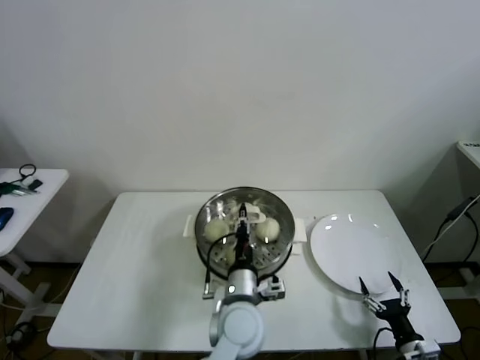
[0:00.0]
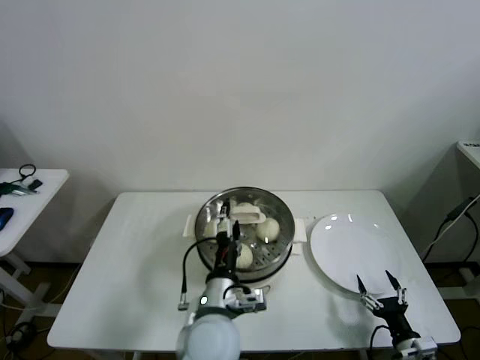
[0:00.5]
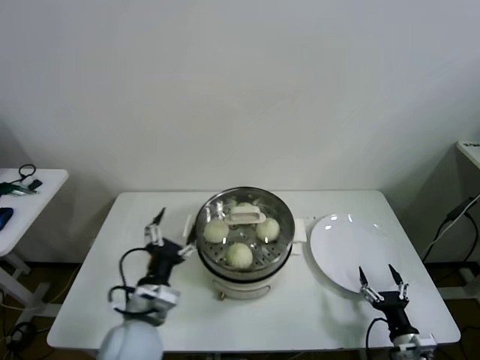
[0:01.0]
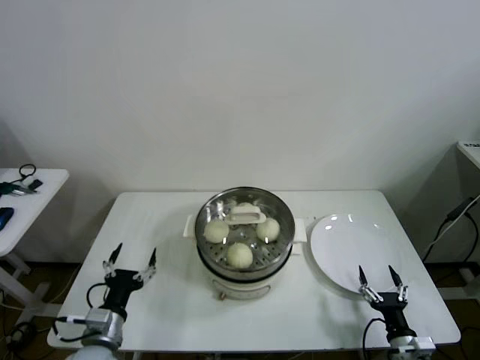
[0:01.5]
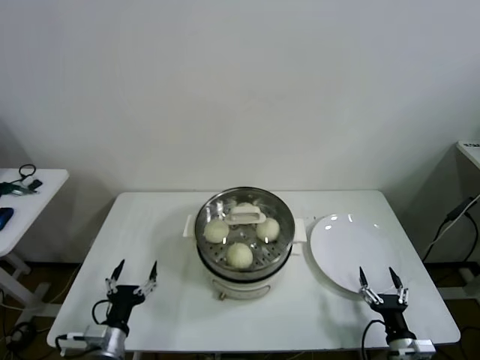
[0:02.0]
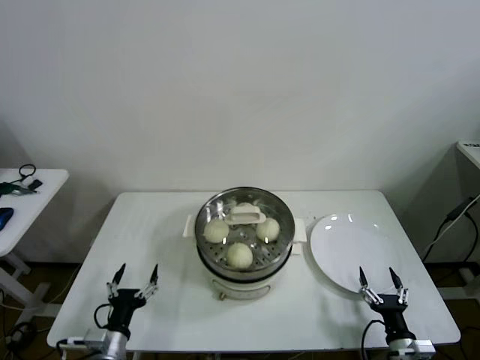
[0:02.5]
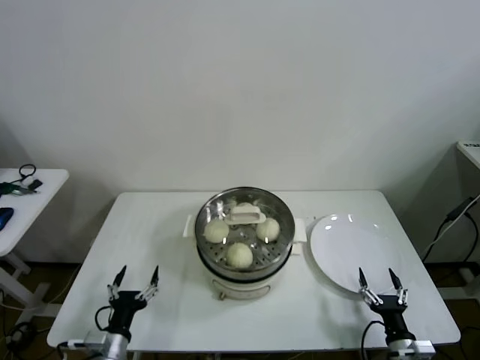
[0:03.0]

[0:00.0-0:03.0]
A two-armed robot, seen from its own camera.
Task of the whole recording: take steamed baozi put them in steamer then cover it.
0:00.0 to 0:01.5: The left gripper shifts some 30 cm to the left, and opens up.
0:01.5 to 0:03.0: The left gripper is displaced downward by roughly 5 cm.

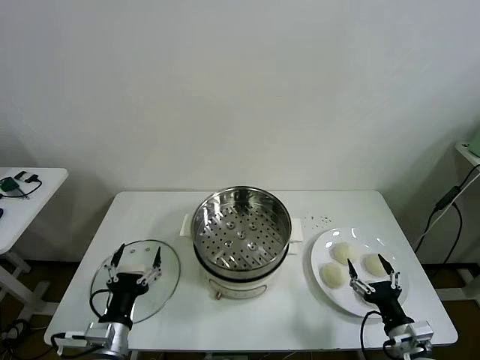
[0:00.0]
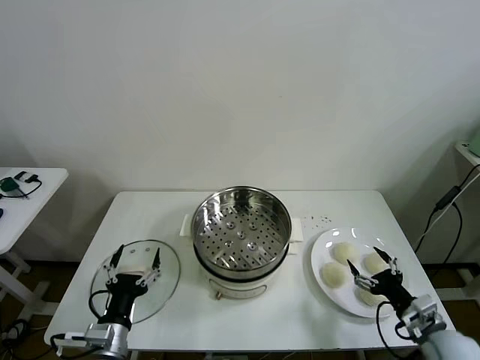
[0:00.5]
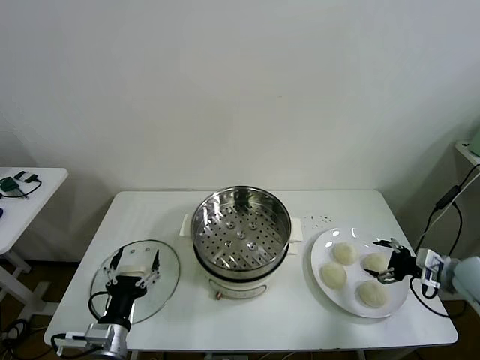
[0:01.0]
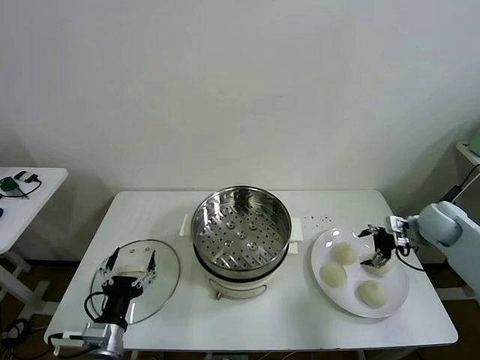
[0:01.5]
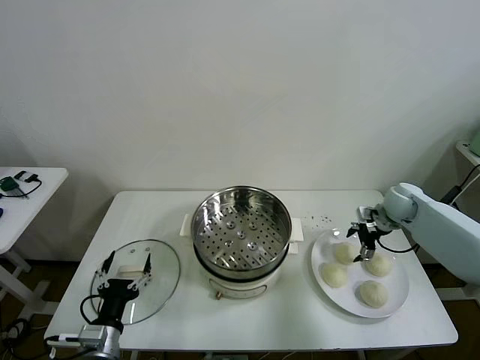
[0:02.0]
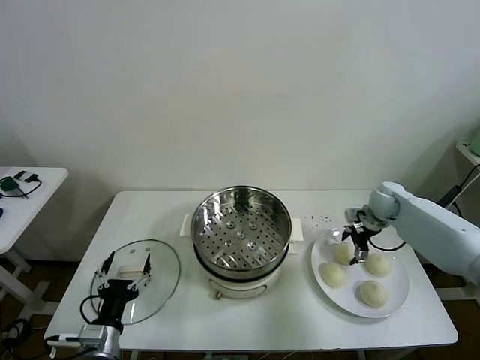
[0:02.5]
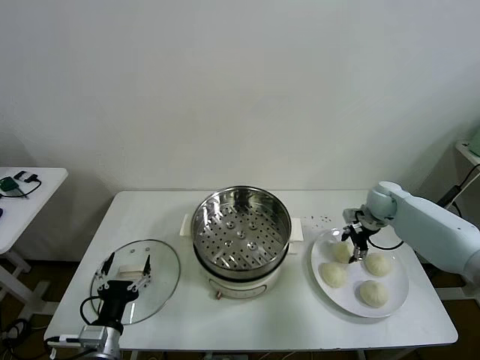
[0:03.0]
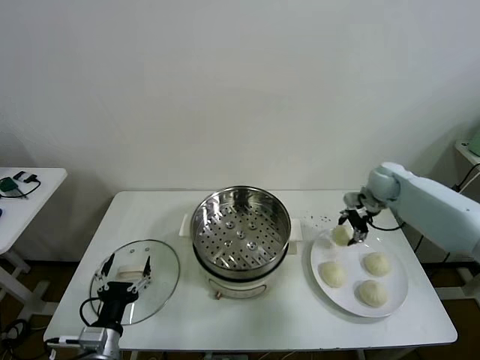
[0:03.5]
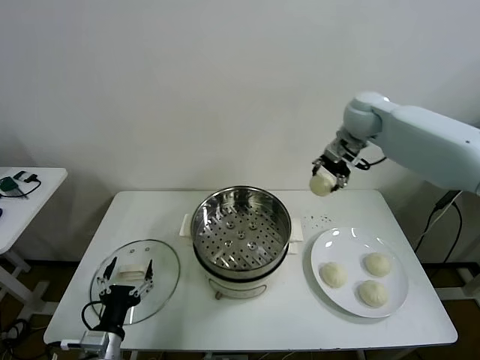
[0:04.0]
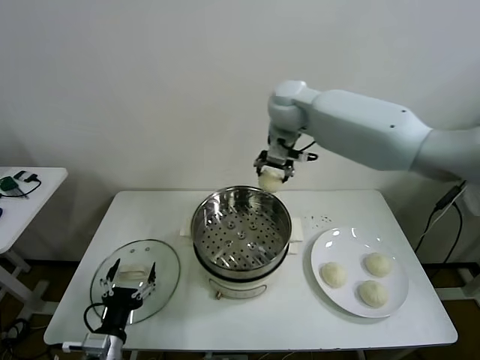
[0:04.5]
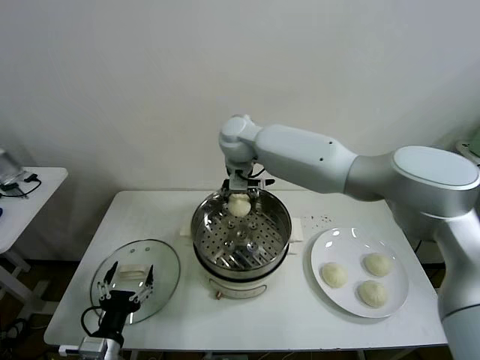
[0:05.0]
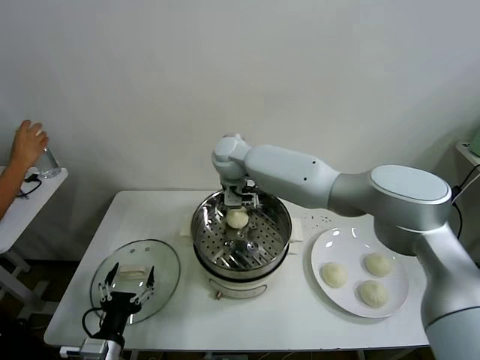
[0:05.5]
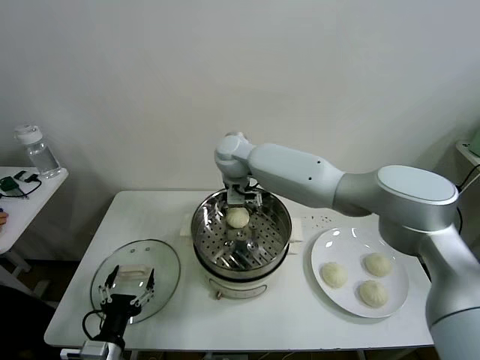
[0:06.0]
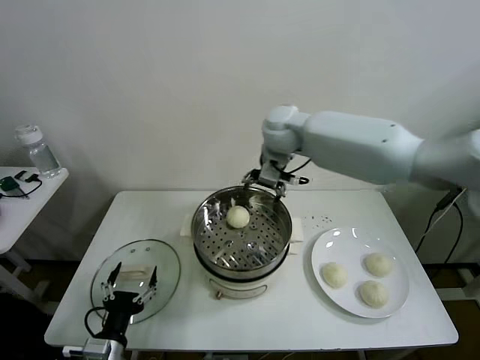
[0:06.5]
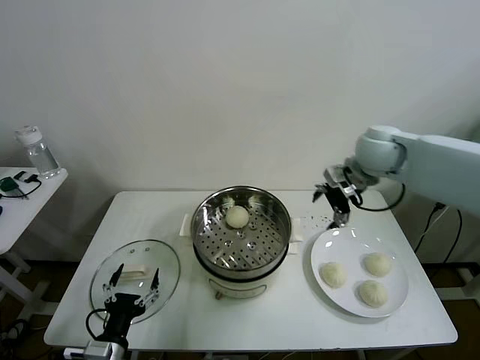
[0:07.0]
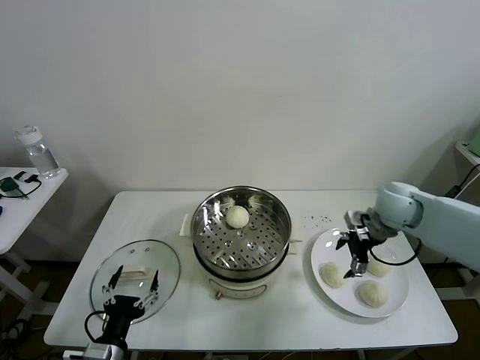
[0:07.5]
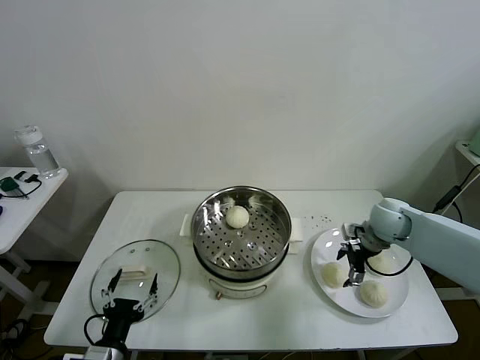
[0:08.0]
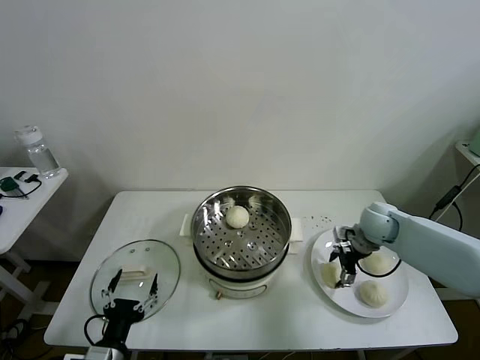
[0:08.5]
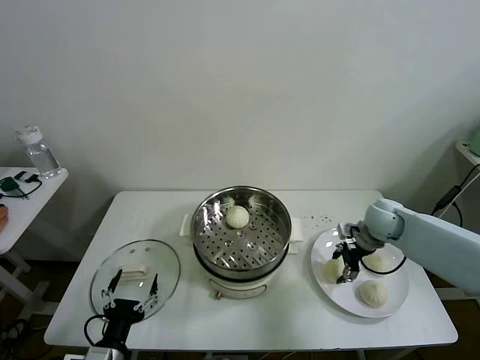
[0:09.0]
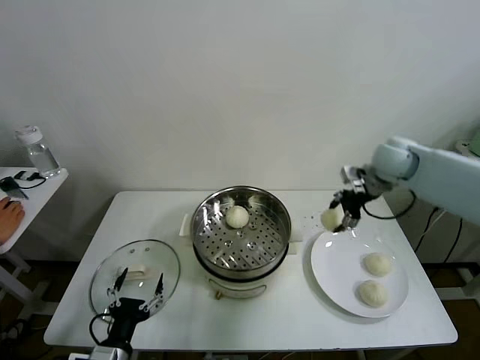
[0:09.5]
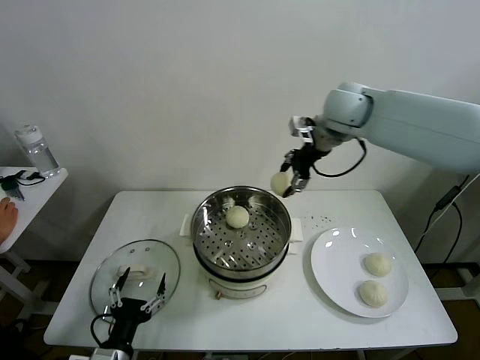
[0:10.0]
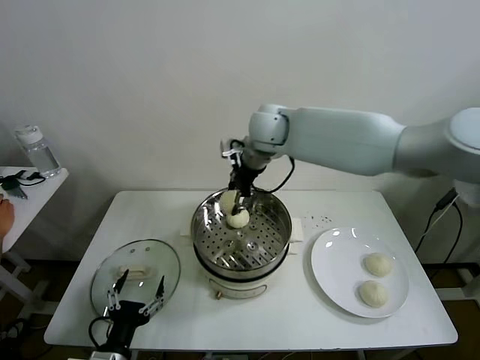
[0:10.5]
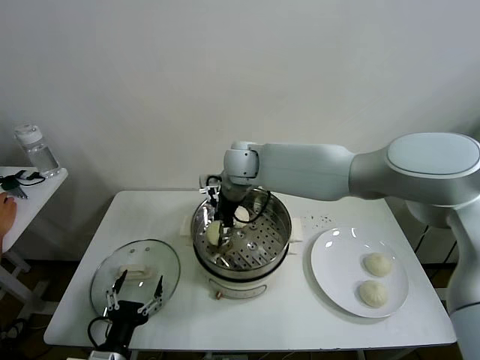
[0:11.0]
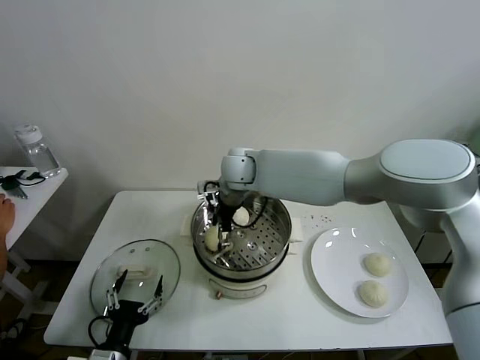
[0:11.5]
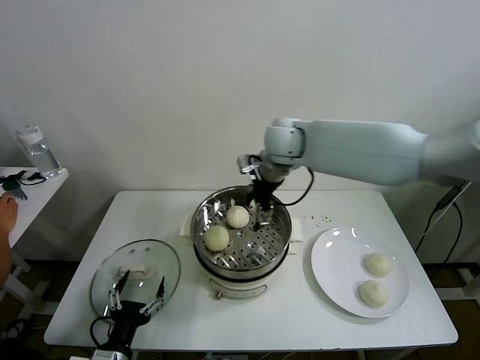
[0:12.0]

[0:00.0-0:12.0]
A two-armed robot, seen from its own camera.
Task of the whole recording: take steamed baozi put them in steamer then cover it.
Step, 0:00.0 to 0:03.0: Grasp the baozi in the plate with right gripper.
Step, 0:03.5 to 0:05.5: Place the baozi on the steamer with right gripper.
Step, 0:06.0 to 0:08.5: Grasp the baozi in the plate with right gripper.
Step, 0:09.0 to 0:11.5: Place the baozi on the steamer with right gripper.
0:02.0 to 0:04.0: The right gripper shifts about 30 cm upward and to the left, and closes up.
0:04.0 to 0:06.0: The right gripper goes about 25 cm to the left, and opens its fingers.
0:06.0 to 0:08.0: The right gripper shifts roughly 35 cm to the right.
0:08.0 to 0:10.0: The right gripper heads upward and to the left, covering some 30 cm, and closes its fingers.
0:10.0 to 0:12.0: The right gripper heads to the left and downward, covering some 10 cm, and opens.

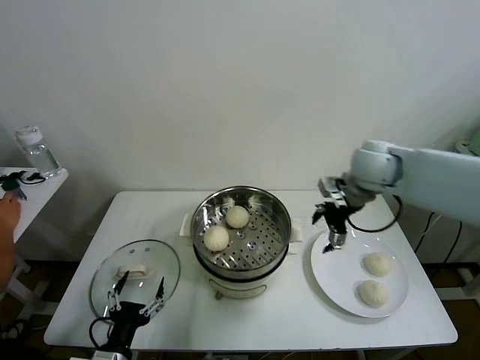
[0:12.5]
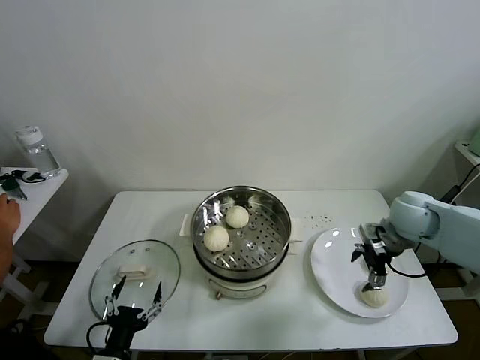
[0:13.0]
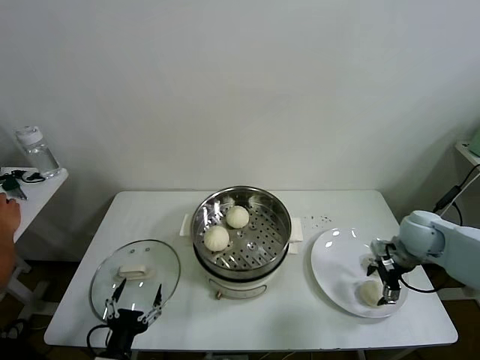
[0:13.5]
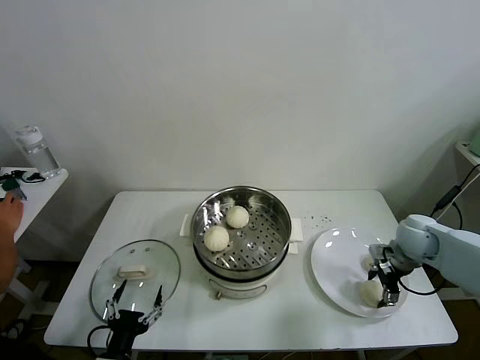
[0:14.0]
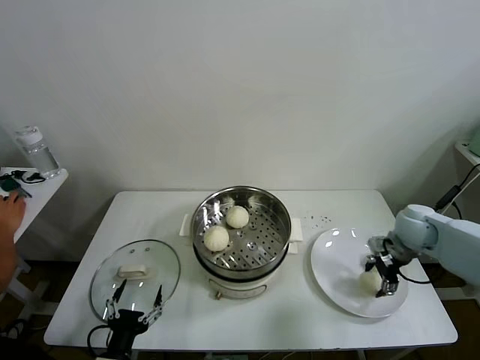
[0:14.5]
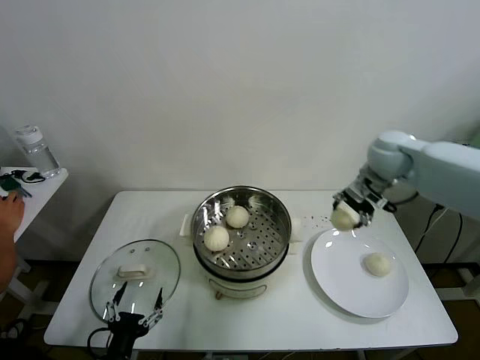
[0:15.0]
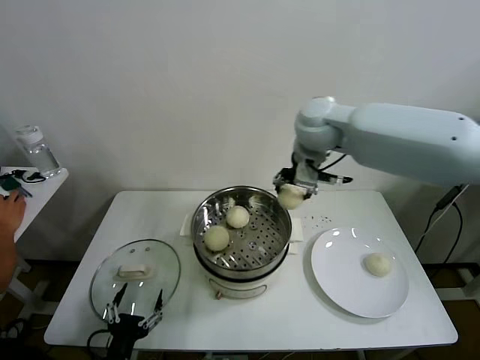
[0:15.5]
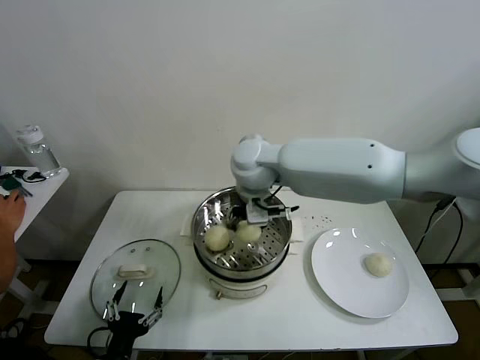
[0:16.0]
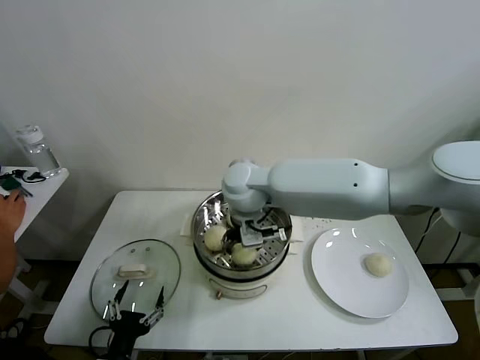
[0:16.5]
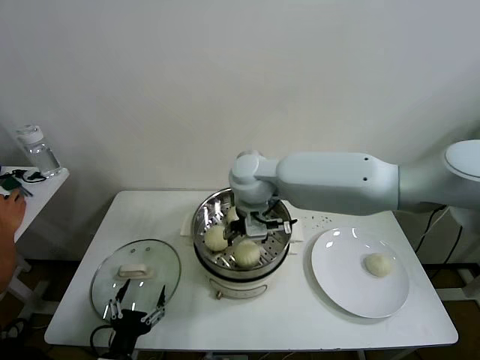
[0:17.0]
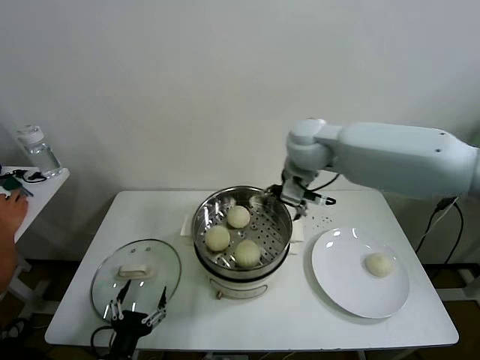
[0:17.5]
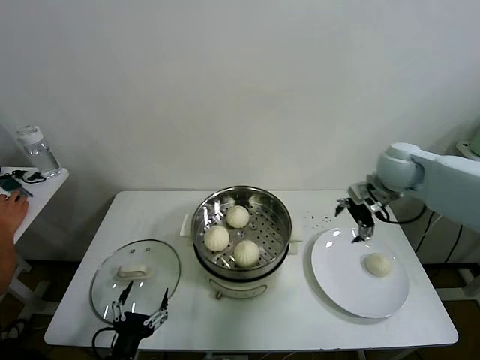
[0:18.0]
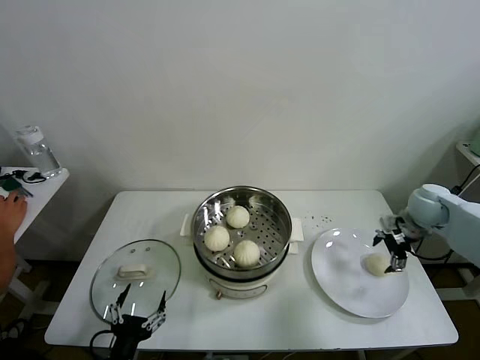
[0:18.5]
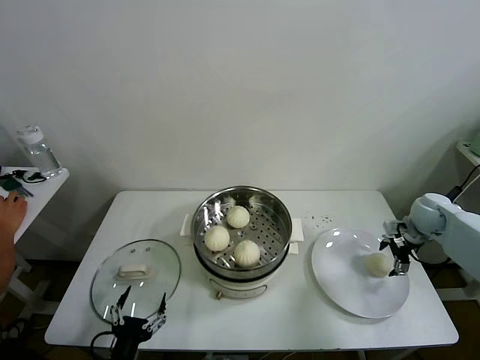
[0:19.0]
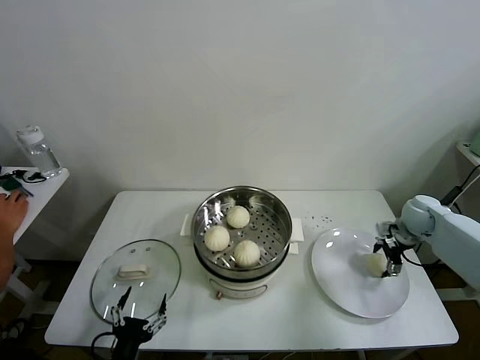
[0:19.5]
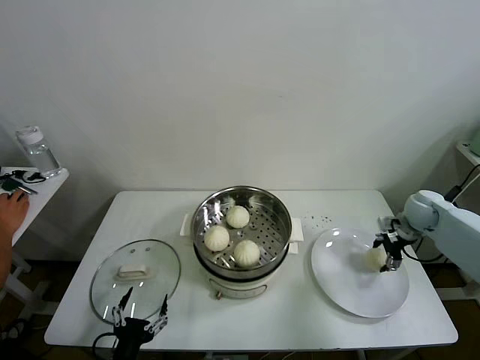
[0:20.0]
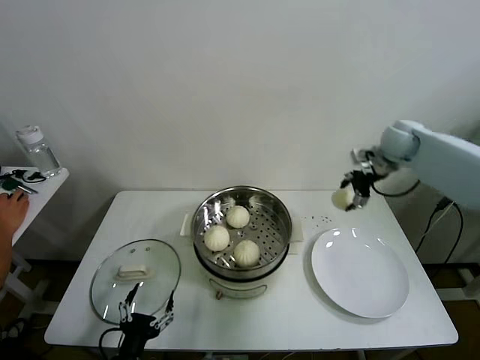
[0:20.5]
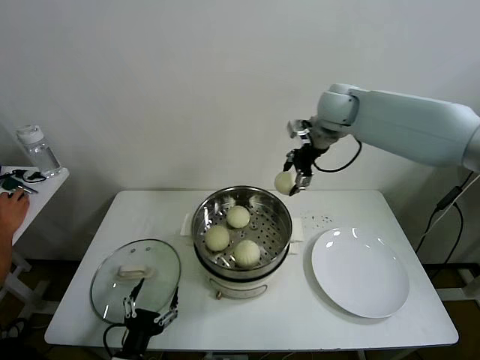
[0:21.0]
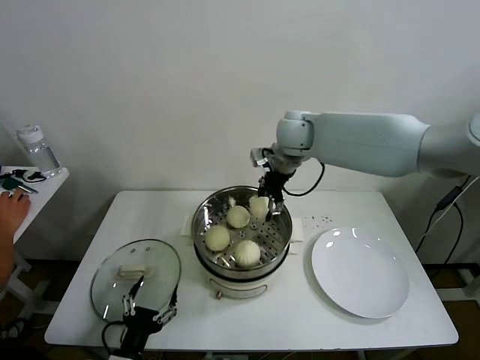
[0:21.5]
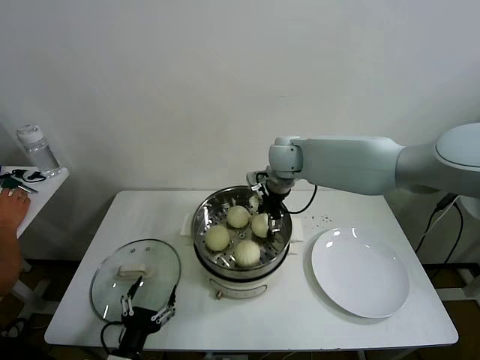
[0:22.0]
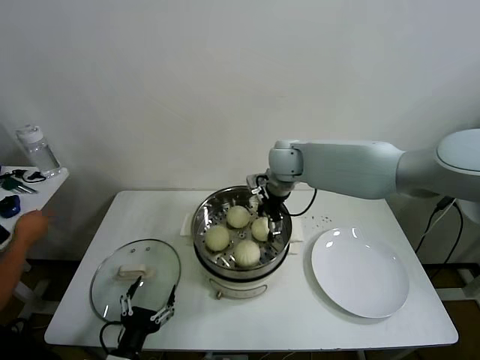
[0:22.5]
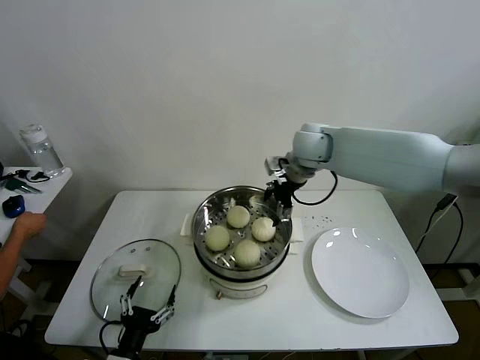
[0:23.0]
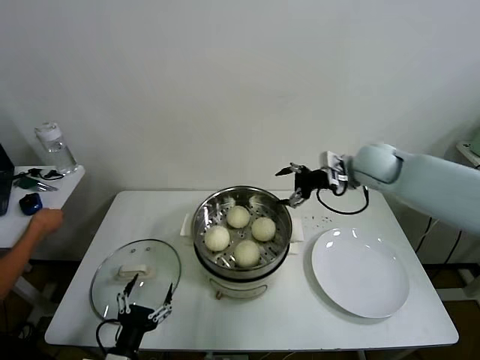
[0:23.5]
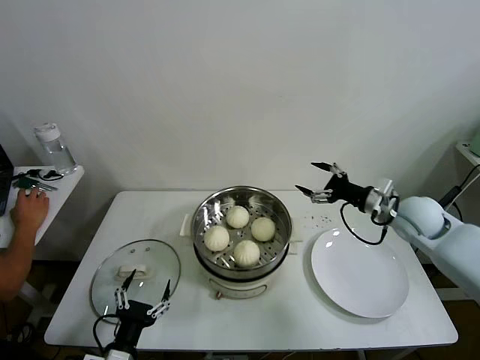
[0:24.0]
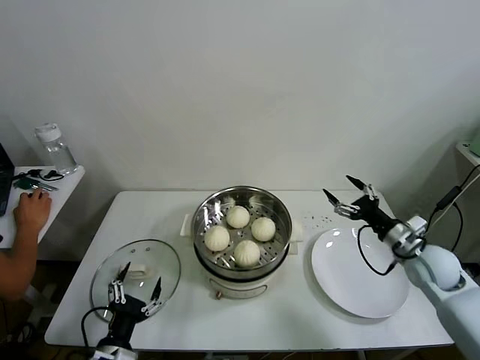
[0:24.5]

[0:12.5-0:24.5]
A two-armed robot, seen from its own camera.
Task of the whole recording: take steamed baozi put them in steamer then cover it.
Step, 0:12.5 to 0:14.0: Grasp the baozi in the plate with right gripper.
Step, 0:14.5 to 0:16.5: Place the baozi on the steamer with right gripper.
Step, 0:17.0 to 0:19.5: Grasp the baozi in the plate with right gripper.
Step, 0:20.0 to 0:22.5: Place the baozi on the steamer with right gripper.
0:12.5 to 0:14.5: The right gripper is displaced downward and to the right by approximately 20 cm, and closes.
0:14.5 to 0:16.5: The right gripper heads to the left, covering about 40 cm.
0:16.5 to 0:18.5: The right gripper is displaced to the right by about 40 cm, and opens up.
0:18.5 to 0:20.5: The right gripper is displaced upward, forward and to the left by some 20 cm, and closes.
0:20.5 to 0:22.5: The right gripper shifts some 25 cm to the left, and opens.
0:22.5 to 0:24.5: The right gripper is displaced to the right, backward and downward by approximately 40 cm.
